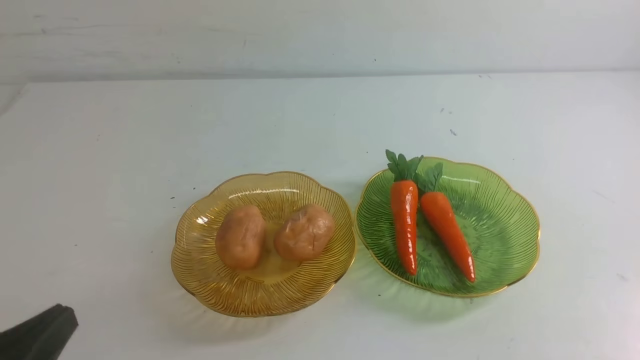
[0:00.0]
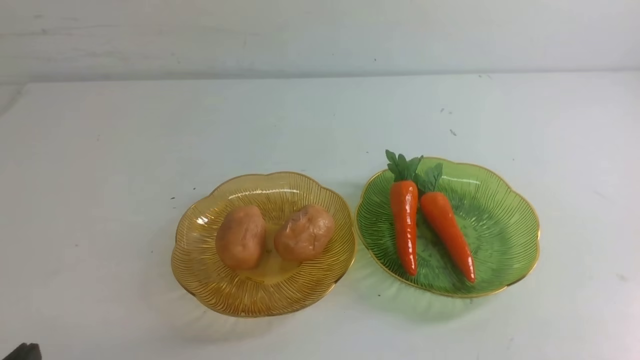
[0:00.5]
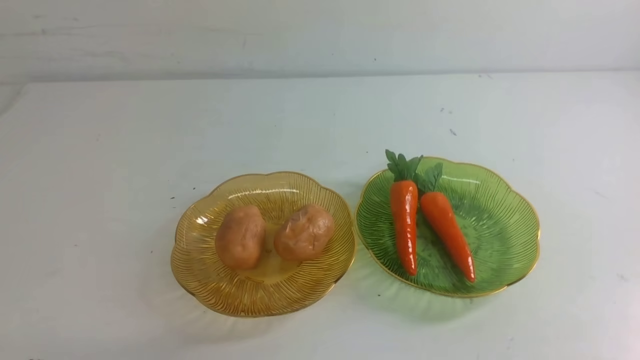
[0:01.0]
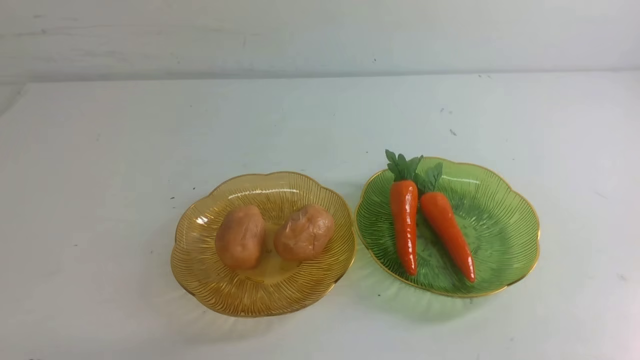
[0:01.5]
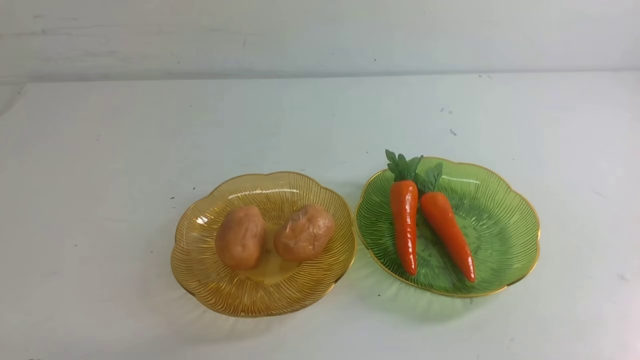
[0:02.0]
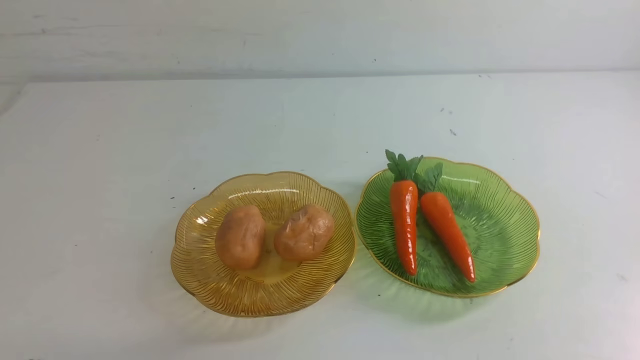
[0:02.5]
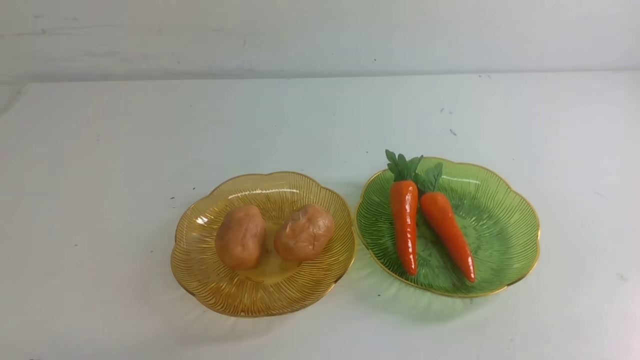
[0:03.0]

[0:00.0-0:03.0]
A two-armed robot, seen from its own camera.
0:00.0 to 0:01.5: The grippers make only small movements.
0:01.5 to 0:03.0: Both grippers stay put.

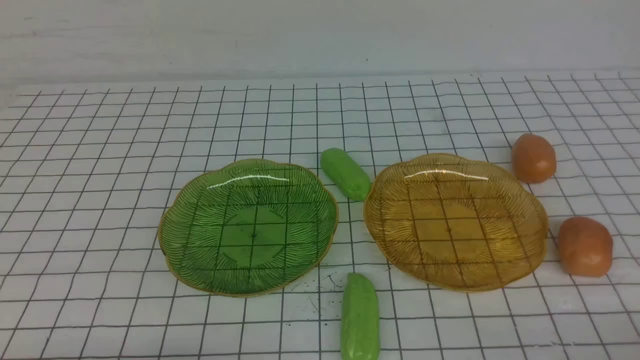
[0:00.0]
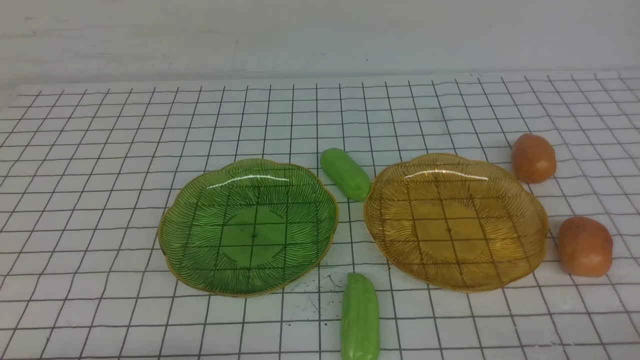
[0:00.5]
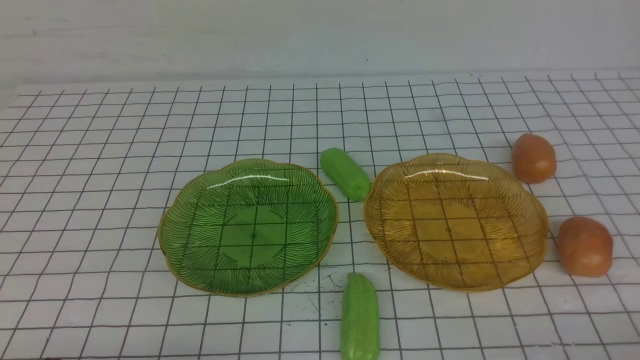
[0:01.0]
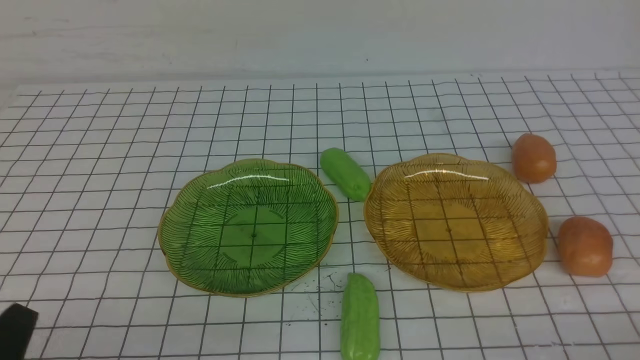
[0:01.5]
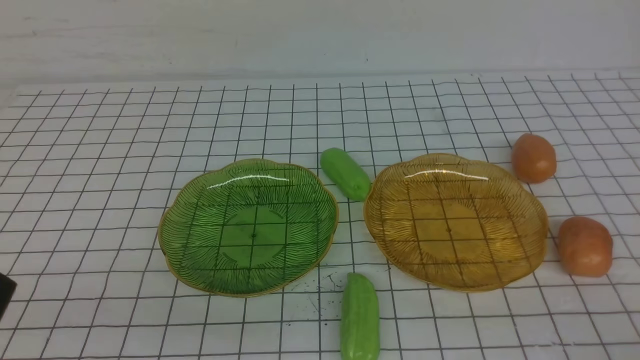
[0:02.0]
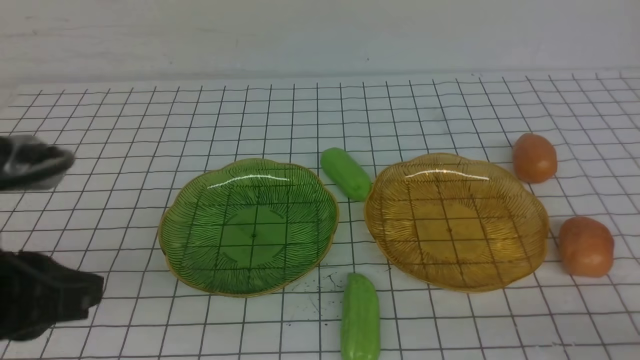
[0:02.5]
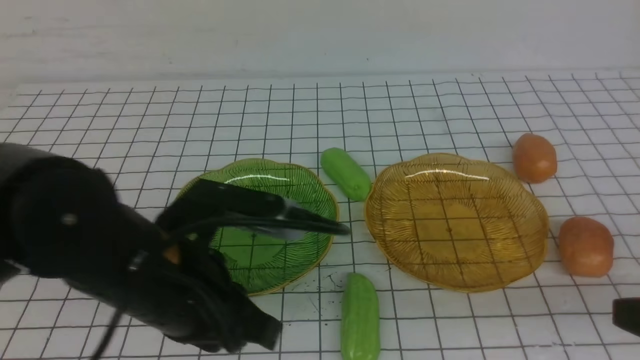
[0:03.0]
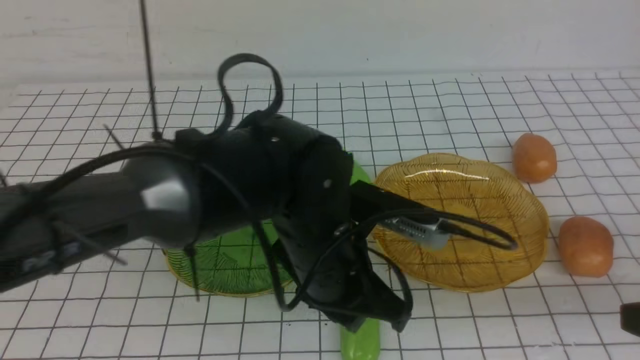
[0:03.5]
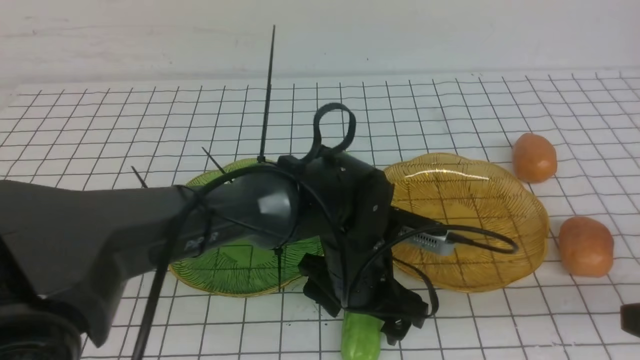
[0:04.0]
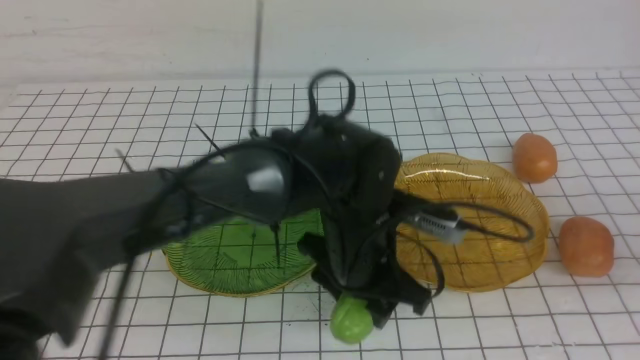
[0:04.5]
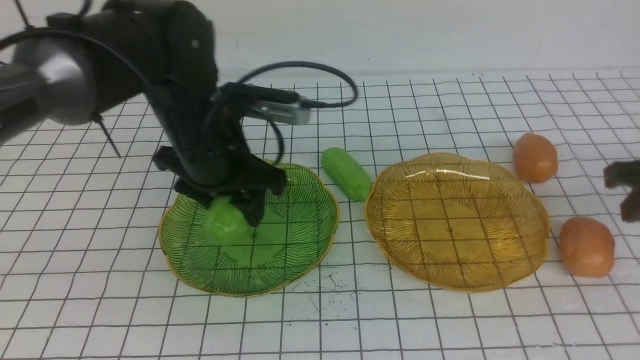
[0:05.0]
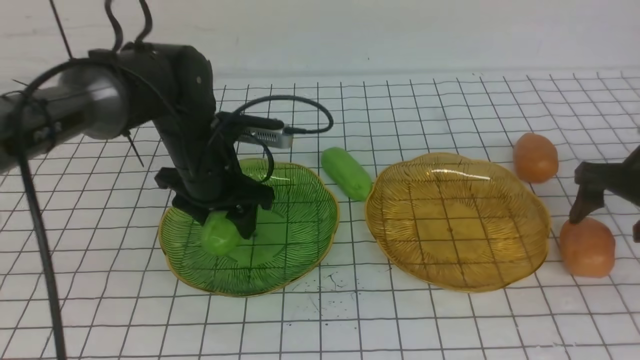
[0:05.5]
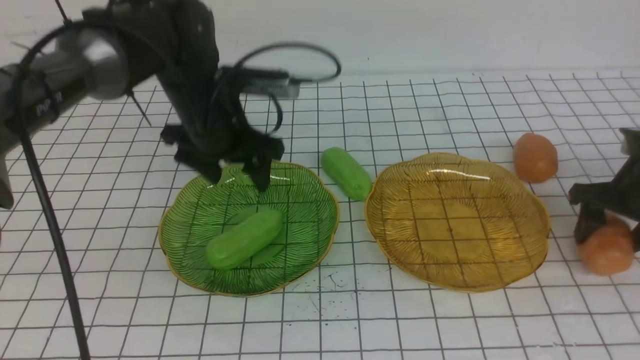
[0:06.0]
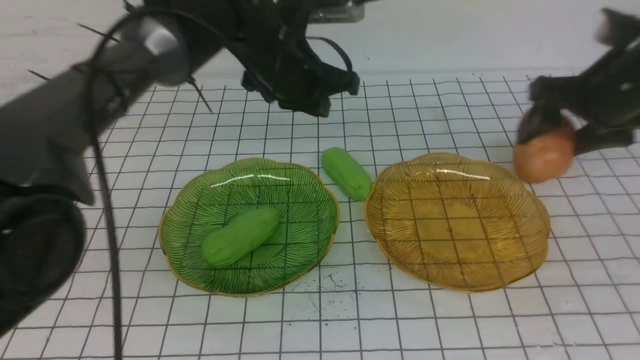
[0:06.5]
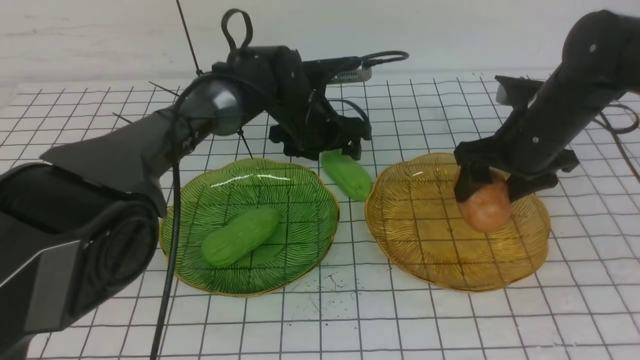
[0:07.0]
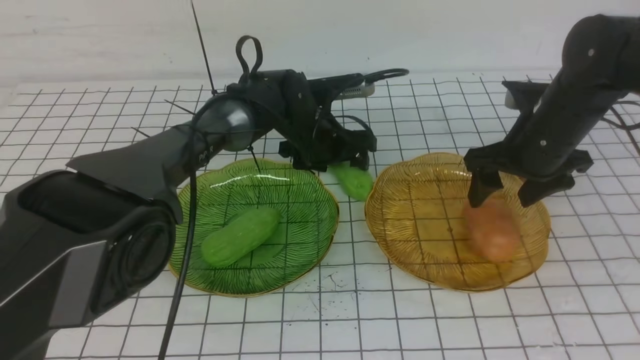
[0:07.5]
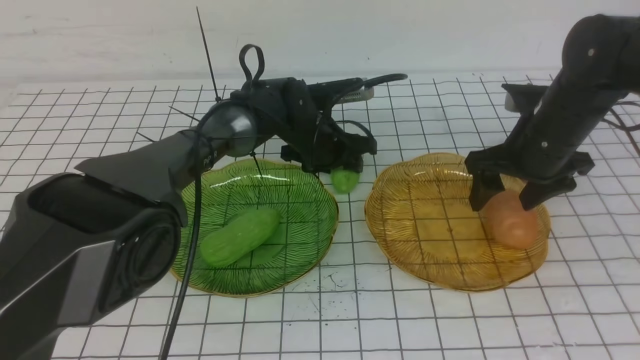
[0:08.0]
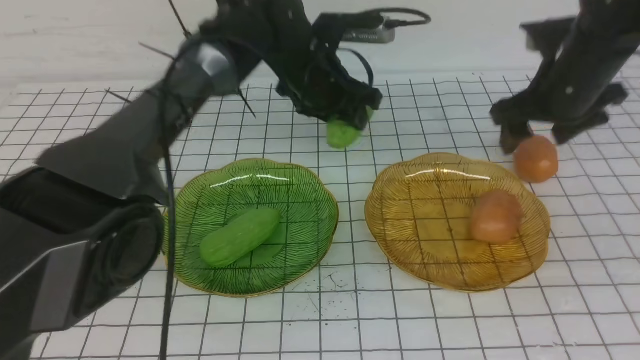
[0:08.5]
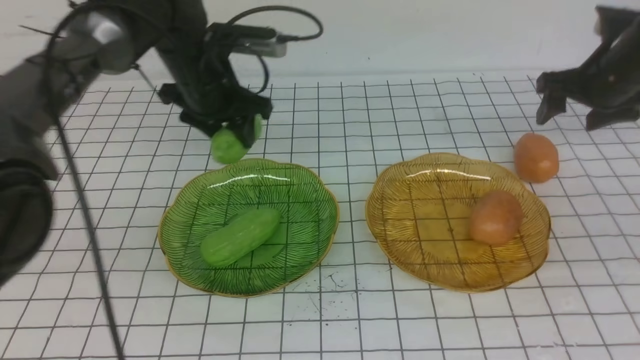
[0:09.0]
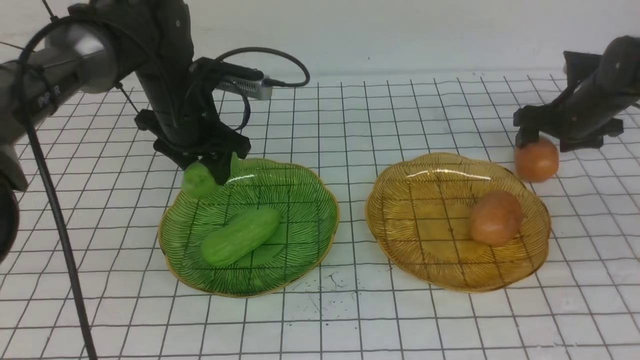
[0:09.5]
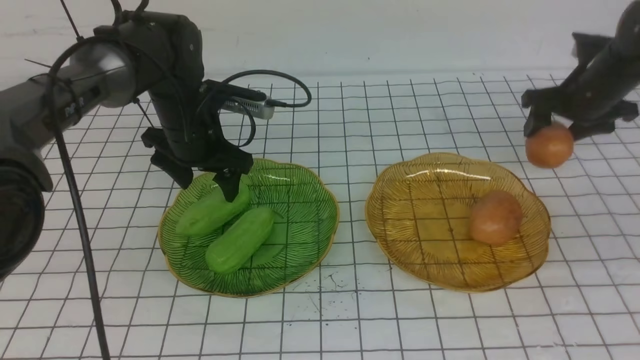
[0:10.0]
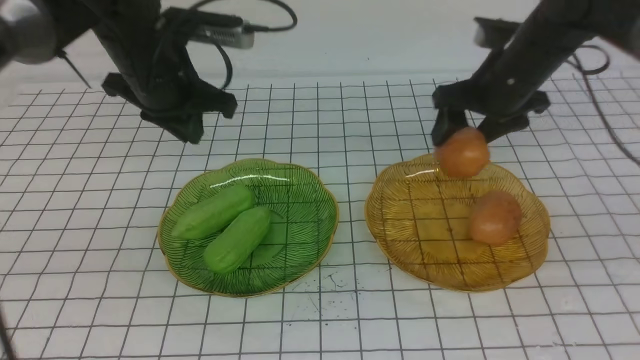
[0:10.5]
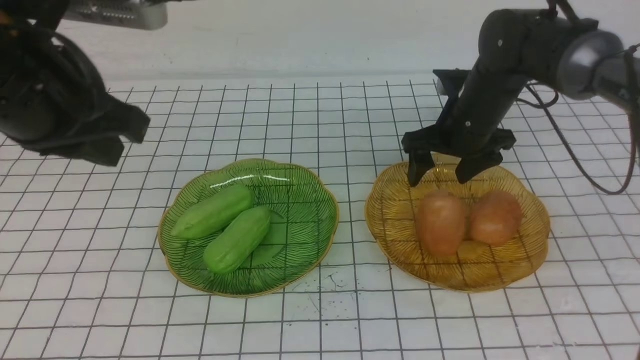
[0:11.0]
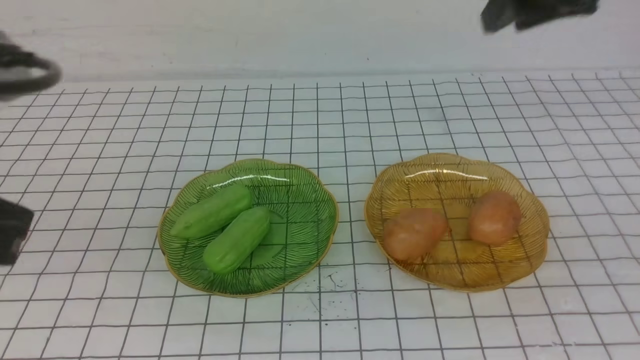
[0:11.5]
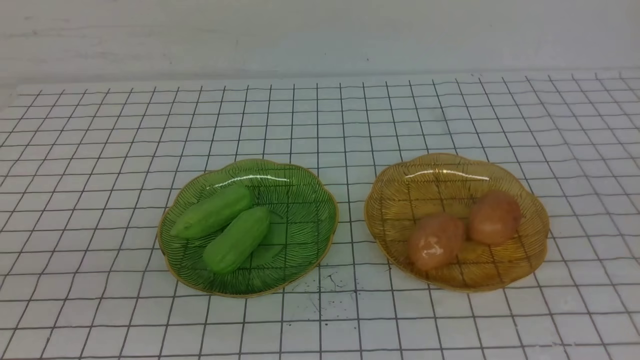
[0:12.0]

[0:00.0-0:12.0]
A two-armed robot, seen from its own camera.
Step, 0:00.0 to 0:05.5: use the left arm to grab a chayote and put it into the left plate.
Step, 0:06.0 to 0:08.0: Grab a potato with your right arm and put it on the right plate.
Step, 0:08.5 to 0:09.5: use the left arm to grab a chayote and put it into the left plate.
Step, 0:10.0 to 0:10.5: Grab a potato with your right arm and put it on the right plate.
0:02.0 to 0:04.0: The left gripper moves to the right and forward, roughly 35 cm, and opens; the right gripper shifts some 10 cm upward and forward.
0:04.0 to 0:06.0: The left gripper travels to the left and forward by roughly 20 cm. The right gripper is displaced forward by roughly 25 cm, and opens.
0:06.0 to 0:08.0: The left gripper moves to the right, forward and downward, roughly 15 cm, and closes, then reopens. Meanwhile the right gripper moves to the left, approximately 10 cm.
0:08.0 to 0:10.0: The right gripper is displaced forward and to the right by approximately 15 cm; the left gripper heads to the left and upward, covering about 15 cm.
0:10.0 to 0:12.0: Both grippers travel together backward and upward, some 40 cm. The left gripper closes its fingers. Meanwhile the right gripper closes its fingers.
